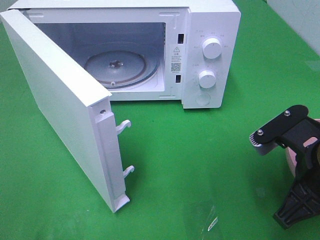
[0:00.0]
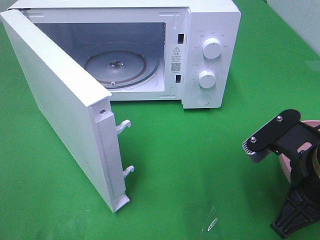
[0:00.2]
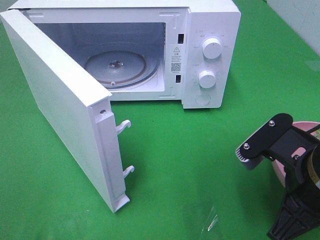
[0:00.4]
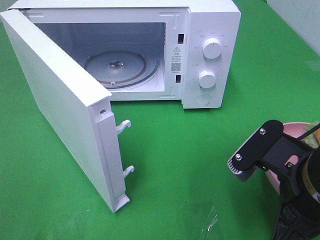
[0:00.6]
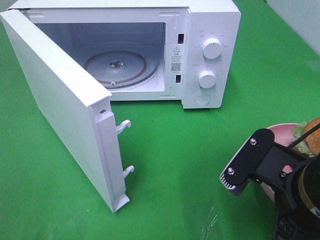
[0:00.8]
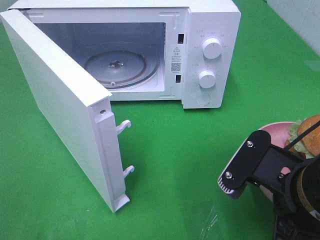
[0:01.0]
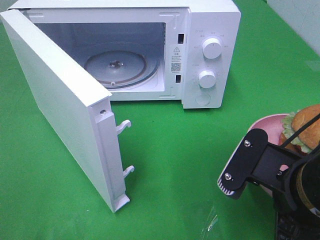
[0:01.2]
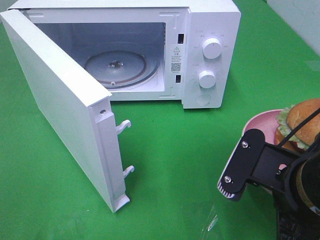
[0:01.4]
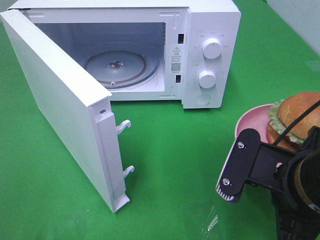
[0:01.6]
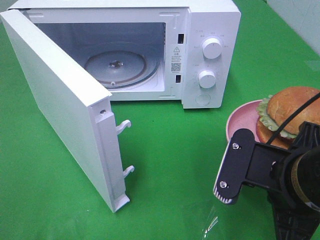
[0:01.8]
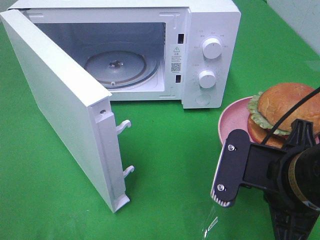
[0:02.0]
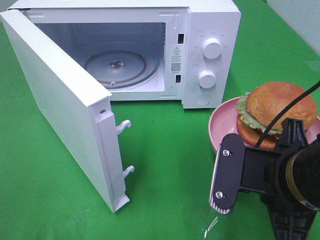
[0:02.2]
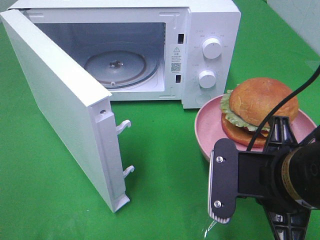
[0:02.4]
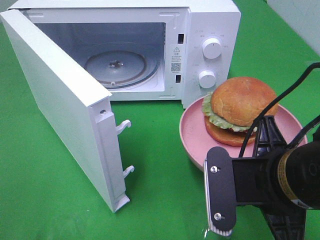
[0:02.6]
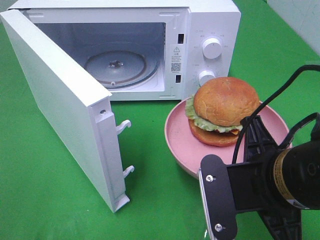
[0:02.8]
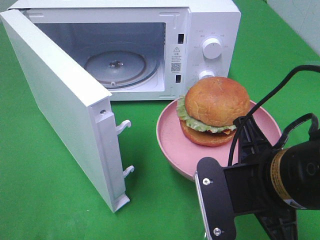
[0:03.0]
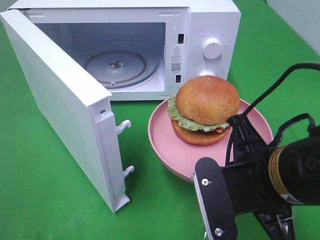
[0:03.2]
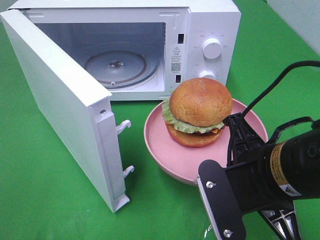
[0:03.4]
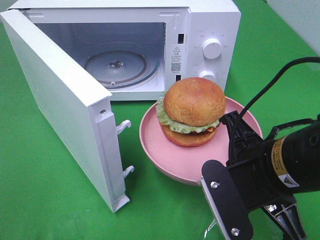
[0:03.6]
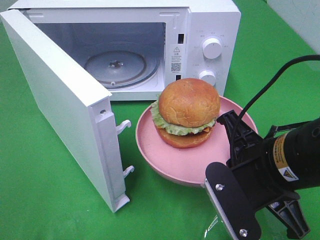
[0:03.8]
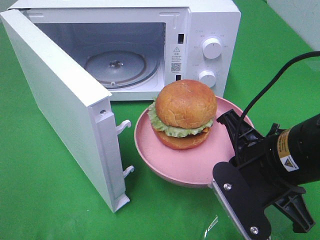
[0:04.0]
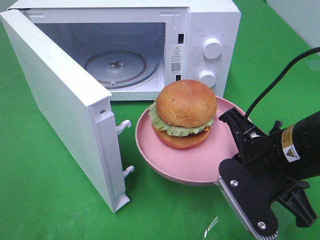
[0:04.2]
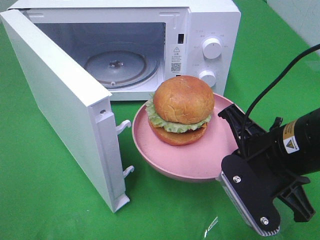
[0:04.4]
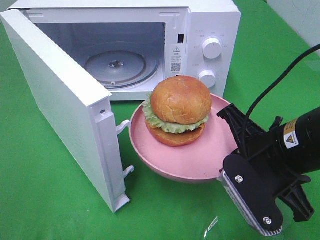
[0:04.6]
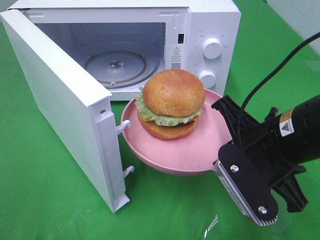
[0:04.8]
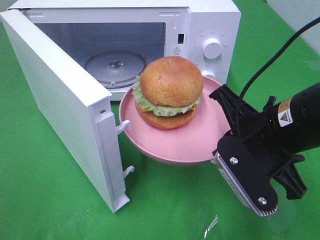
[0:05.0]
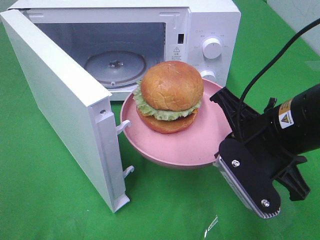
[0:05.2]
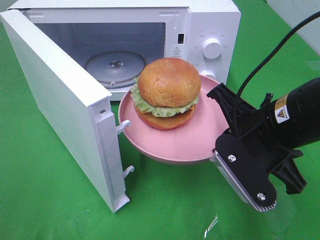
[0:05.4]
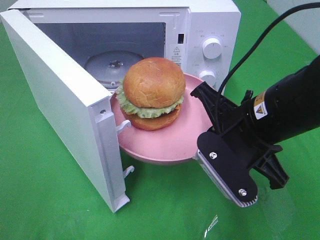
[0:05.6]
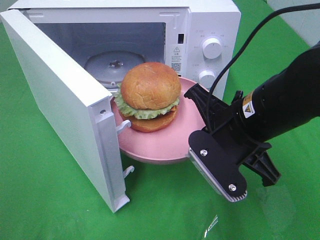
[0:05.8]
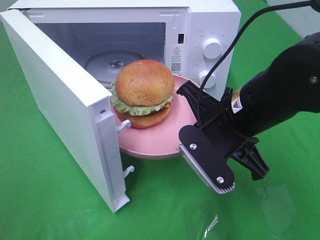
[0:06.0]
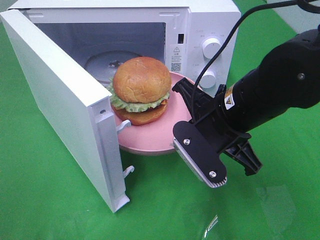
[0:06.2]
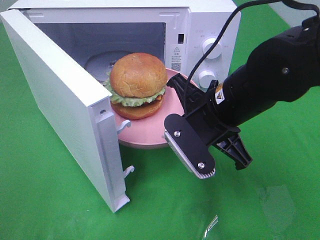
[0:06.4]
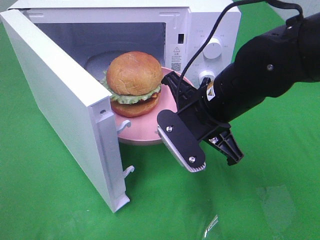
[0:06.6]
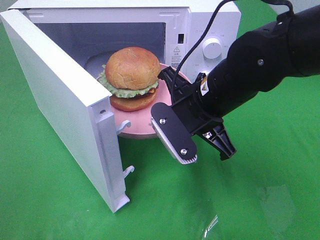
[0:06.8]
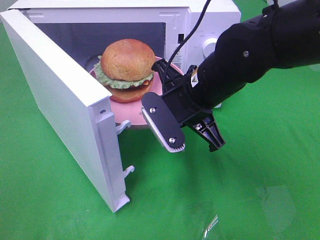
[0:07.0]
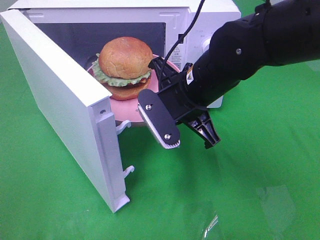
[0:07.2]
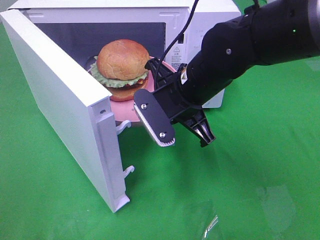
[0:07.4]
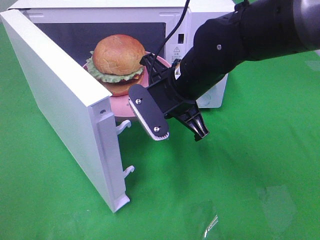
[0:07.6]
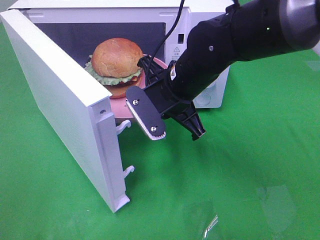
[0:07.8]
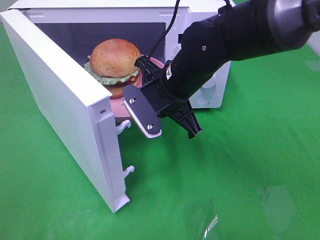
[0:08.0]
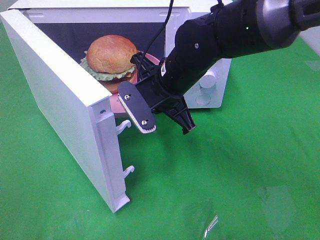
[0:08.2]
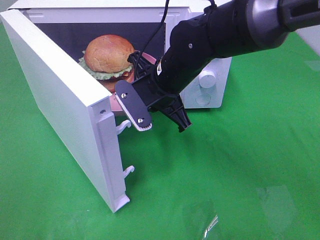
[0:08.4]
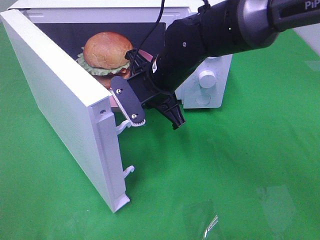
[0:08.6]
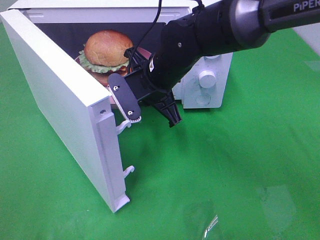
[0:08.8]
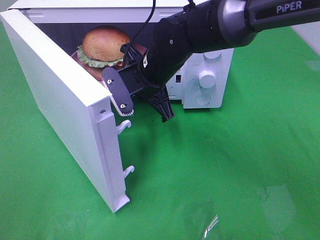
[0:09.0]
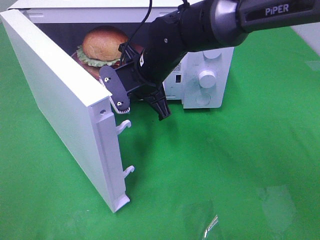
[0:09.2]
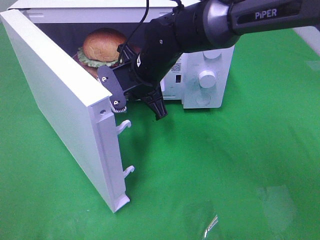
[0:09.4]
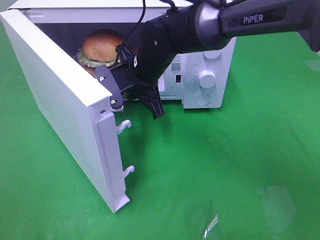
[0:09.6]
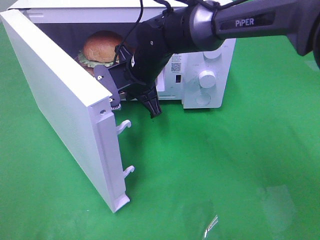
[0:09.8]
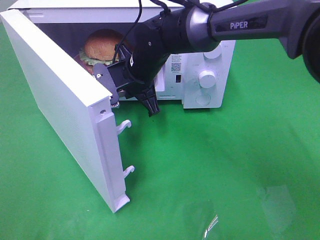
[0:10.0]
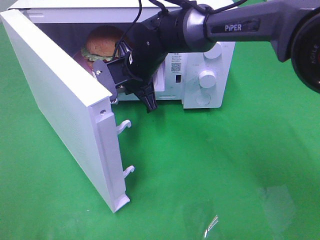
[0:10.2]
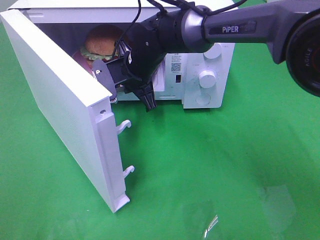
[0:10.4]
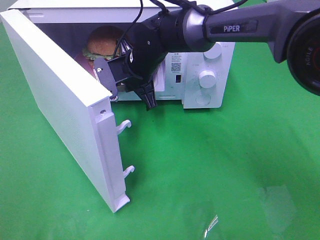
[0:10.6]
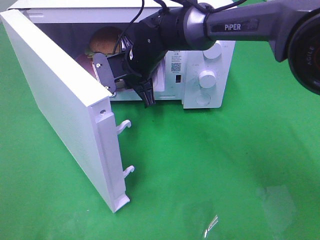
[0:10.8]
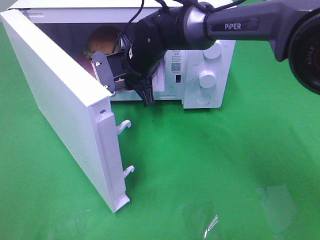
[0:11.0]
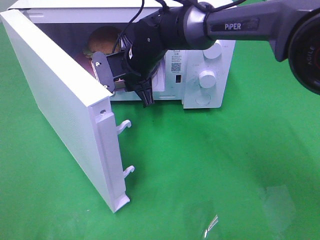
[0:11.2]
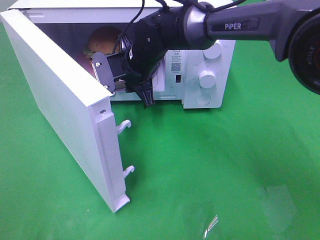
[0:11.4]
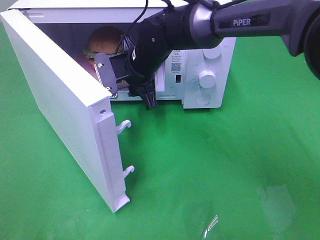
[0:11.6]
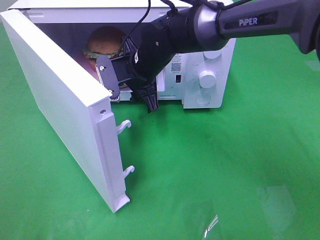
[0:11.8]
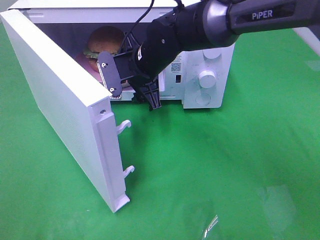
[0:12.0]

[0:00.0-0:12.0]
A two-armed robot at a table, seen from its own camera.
Task of the whole recording: Heat the burger.
Step, 0:00.0 to 0:11.8: Right hand: place the plate in the microwave.
0:00.0 to 0:01.6: The right gripper ends up roughly 5 cm from where it was.
0:03.0 to 0:04.4: The right gripper moves about 5 cm.
0:04.4 to 0:06.0: The right gripper shifts by roughly 5 cm.
0:06.0 to 0:07.6: The right gripper moves forward and to the left, about 10 cm.
0:07.6 to 0:09.0: The right gripper heads forward, covering approximately 5 cm.
0:09.0 to 0:10.4: The right gripper moves forward, approximately 5 cm.
0:10.4 to 0:12.0: The right gripper opens its fingers.

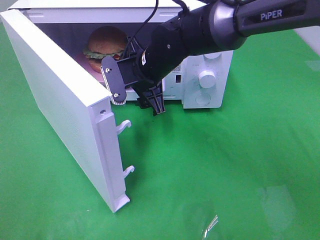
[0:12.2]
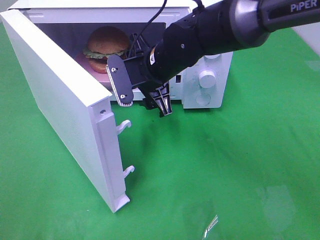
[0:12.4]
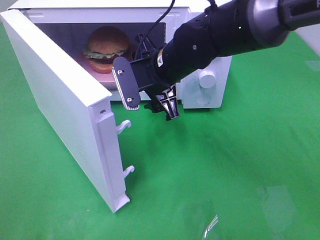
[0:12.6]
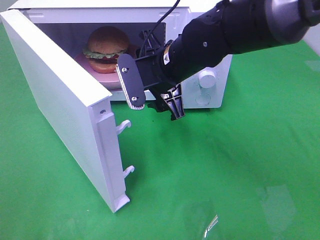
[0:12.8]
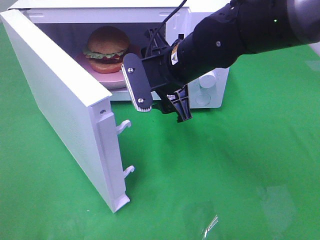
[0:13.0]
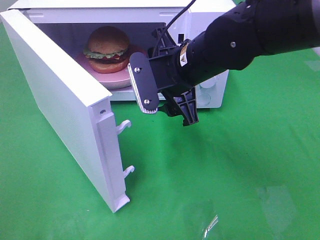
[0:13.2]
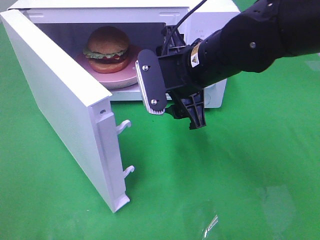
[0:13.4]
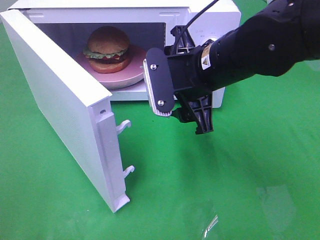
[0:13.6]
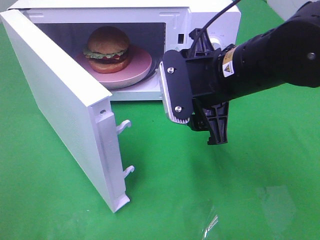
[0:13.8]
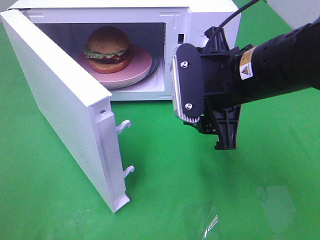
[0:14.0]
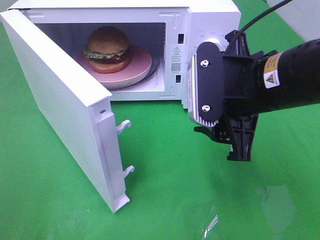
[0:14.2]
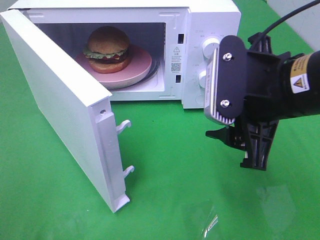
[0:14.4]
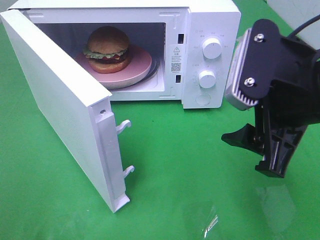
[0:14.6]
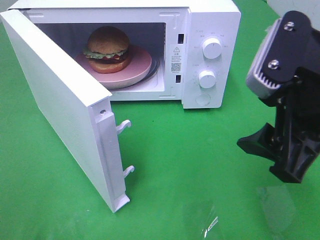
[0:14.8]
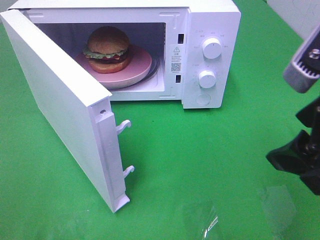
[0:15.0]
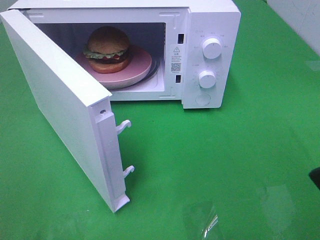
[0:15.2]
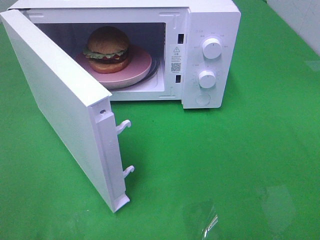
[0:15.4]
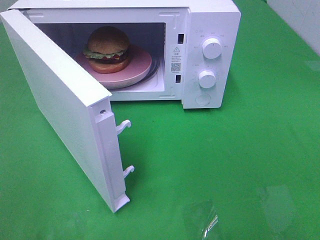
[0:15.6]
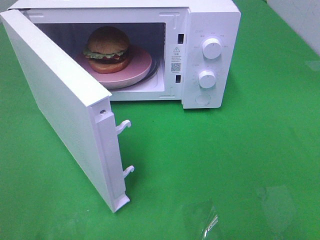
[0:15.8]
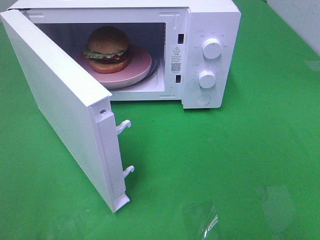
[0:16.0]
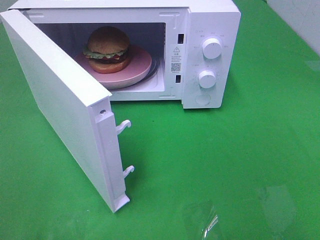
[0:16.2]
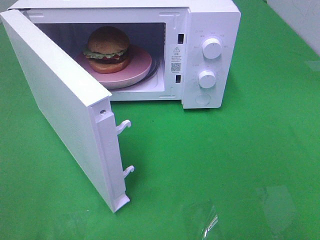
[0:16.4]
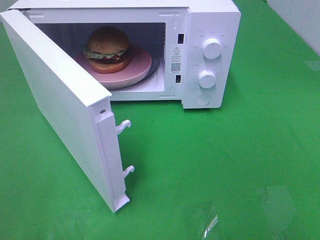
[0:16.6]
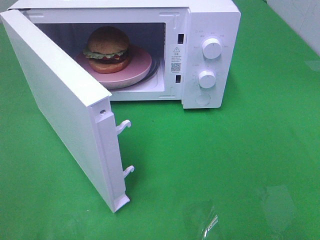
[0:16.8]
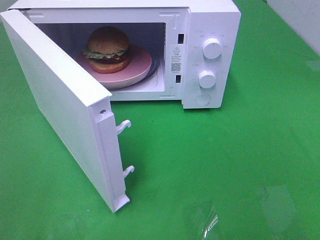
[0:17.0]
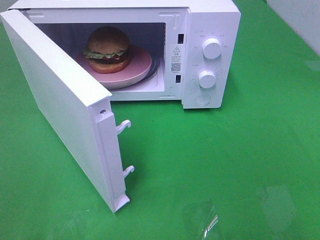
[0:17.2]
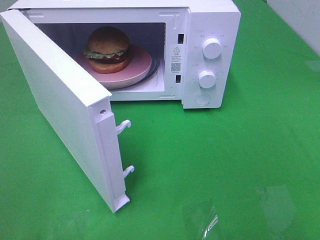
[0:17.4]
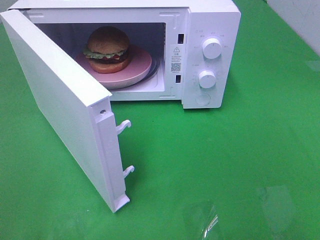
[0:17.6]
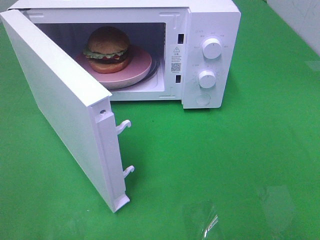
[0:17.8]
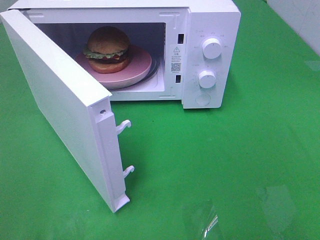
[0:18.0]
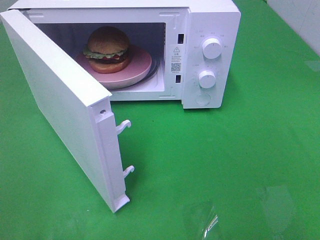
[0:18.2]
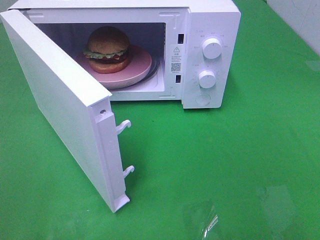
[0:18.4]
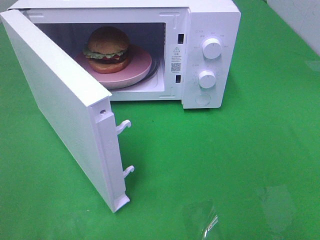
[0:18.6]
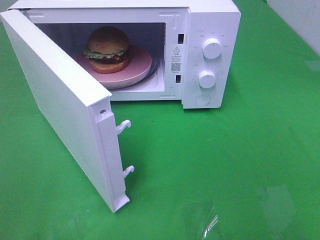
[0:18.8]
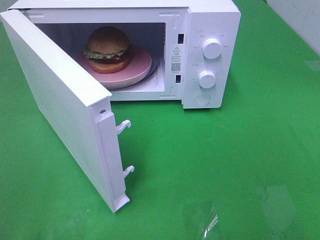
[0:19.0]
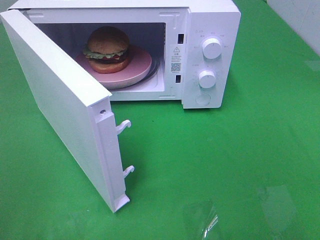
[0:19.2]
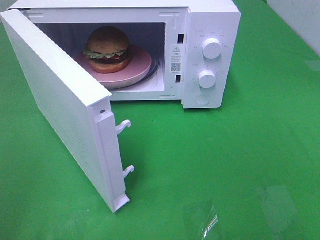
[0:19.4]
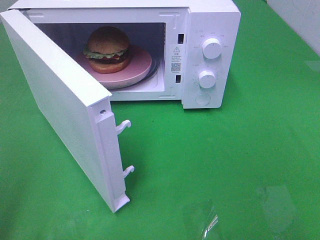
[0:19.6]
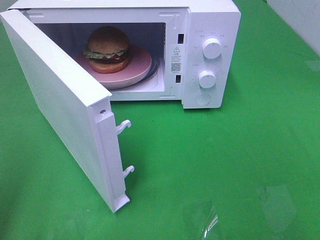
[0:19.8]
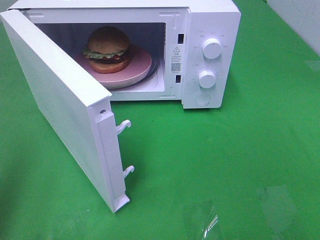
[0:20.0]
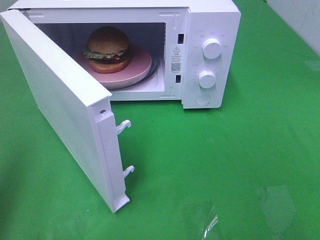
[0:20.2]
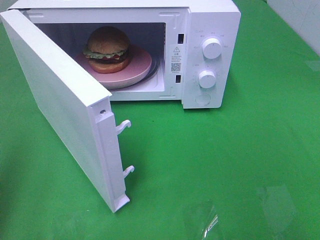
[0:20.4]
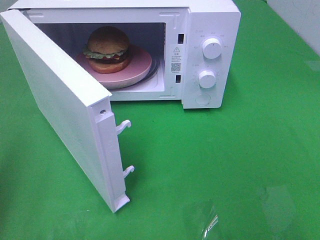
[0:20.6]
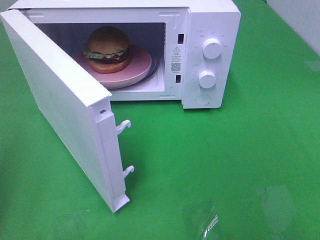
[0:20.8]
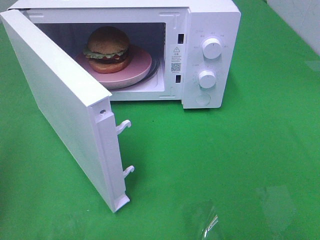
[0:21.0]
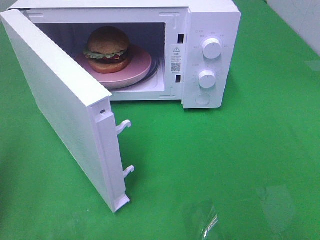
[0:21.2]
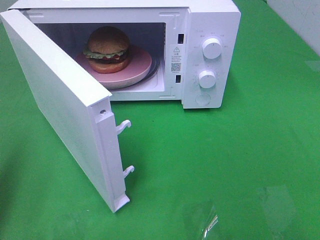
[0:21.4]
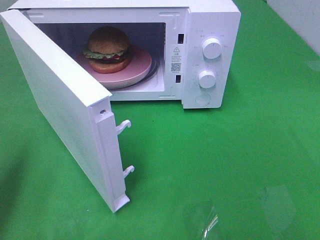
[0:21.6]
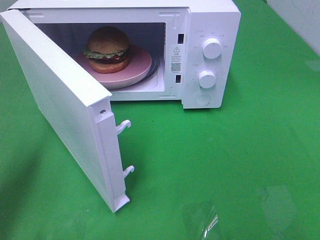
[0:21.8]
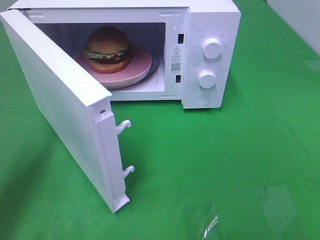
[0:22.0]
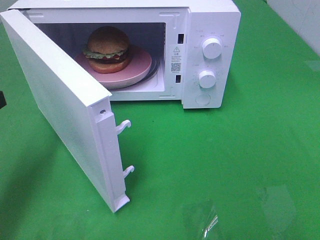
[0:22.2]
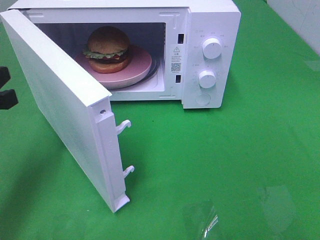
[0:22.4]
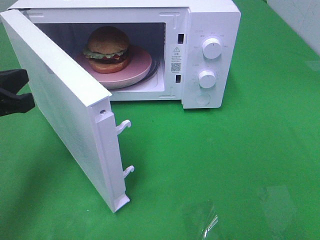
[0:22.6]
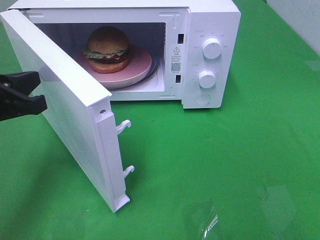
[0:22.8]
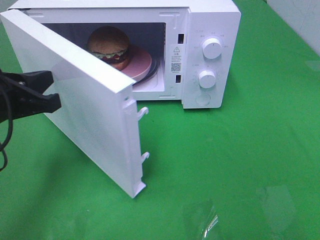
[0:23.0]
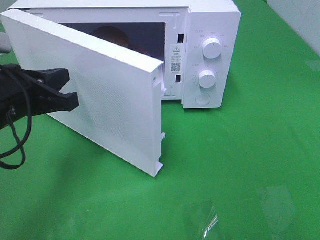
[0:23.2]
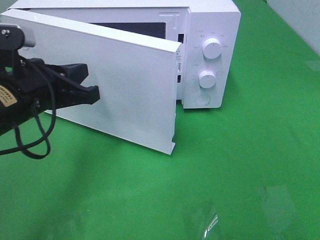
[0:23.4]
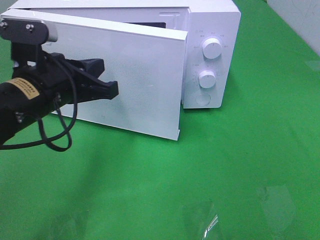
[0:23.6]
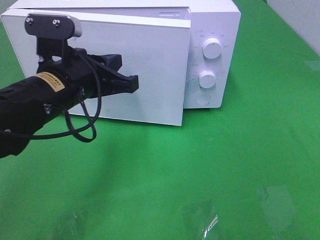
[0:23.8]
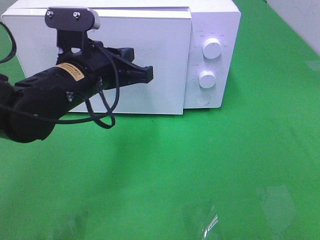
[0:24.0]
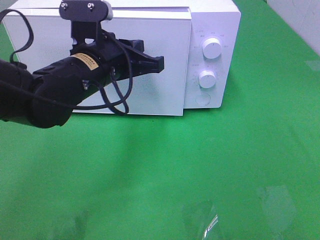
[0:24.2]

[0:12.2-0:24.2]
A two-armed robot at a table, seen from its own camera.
Task of the whole recording: Heat the burger.
0:12.2 to 0:13.8: The right gripper heads backward, to the right and upward, covering some 15 cm.
0:13.8 to 0:15.2: The right gripper is displaced backward, to the right and upward by some 20 cm.
0:15.2 to 0:16.6: The right gripper is displaced backward and to the right by approximately 10 cm.
0:21.2 to 0:22.6: The left gripper shifts some 10 cm forward and to the right.
0:22.6 to 0:24.2: The left gripper goes some 20 cm to the right and forward.
